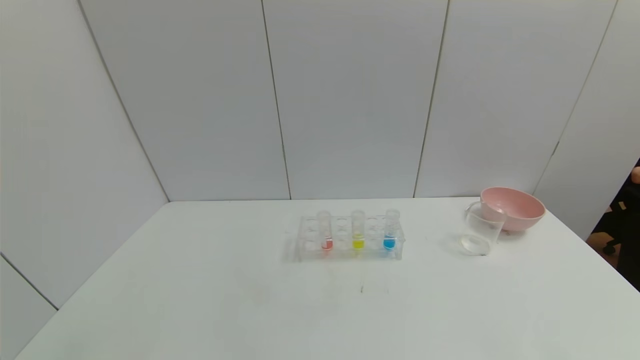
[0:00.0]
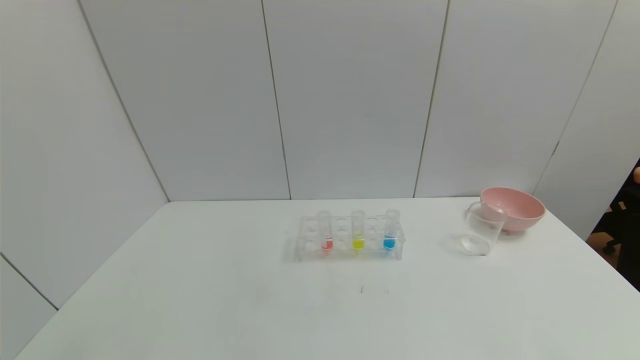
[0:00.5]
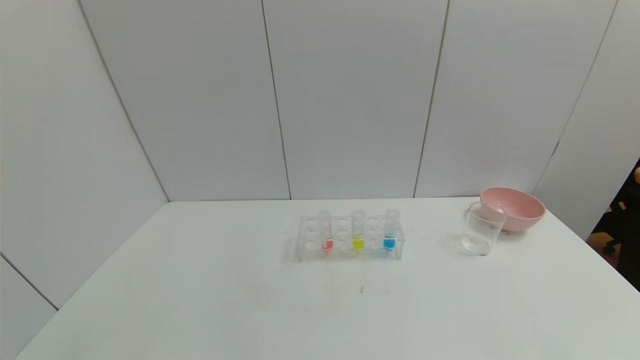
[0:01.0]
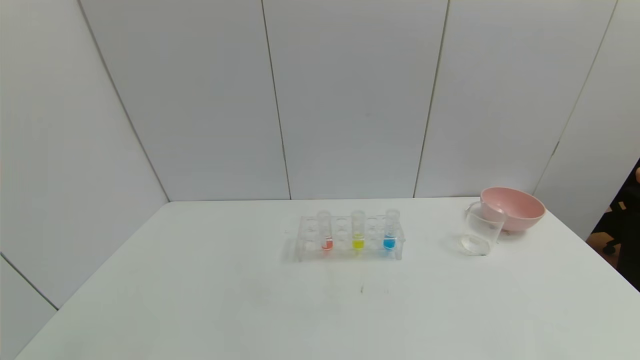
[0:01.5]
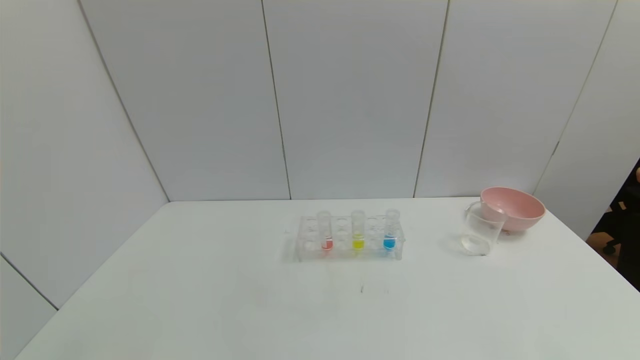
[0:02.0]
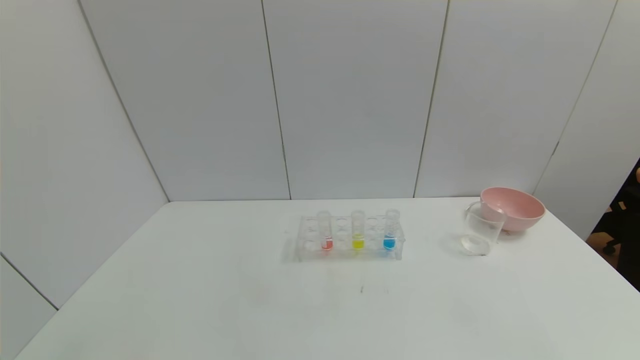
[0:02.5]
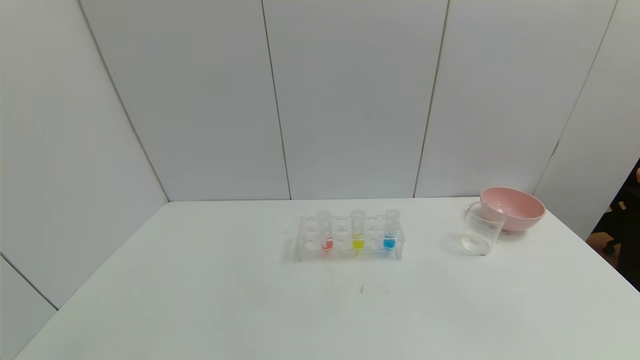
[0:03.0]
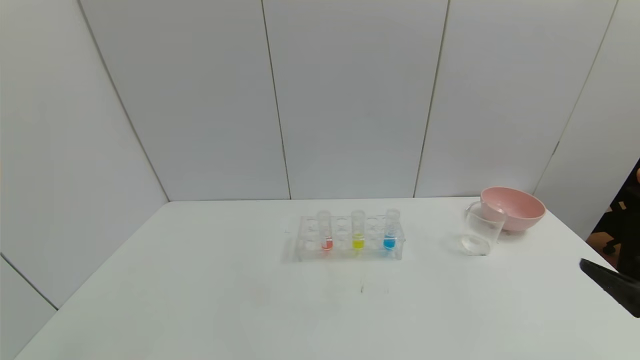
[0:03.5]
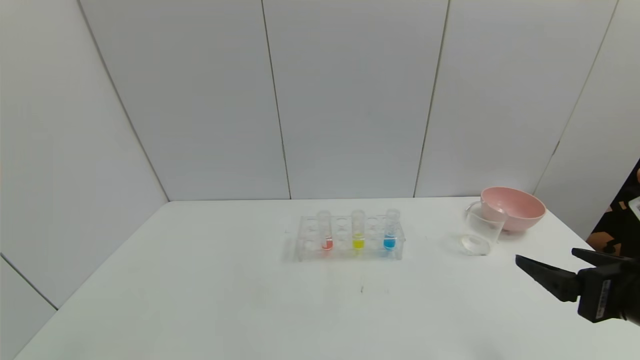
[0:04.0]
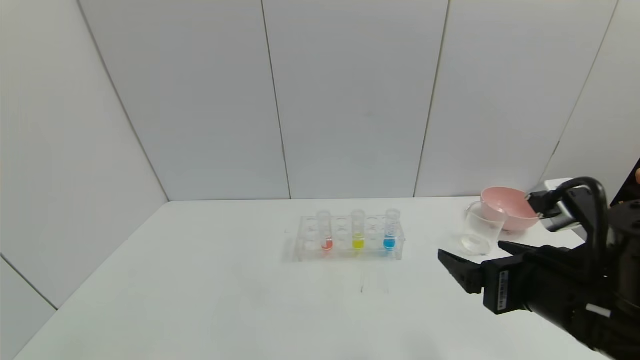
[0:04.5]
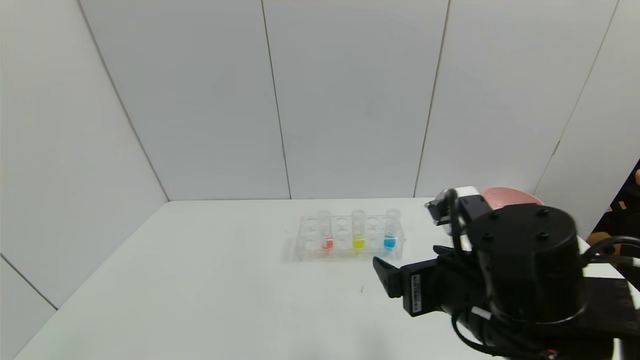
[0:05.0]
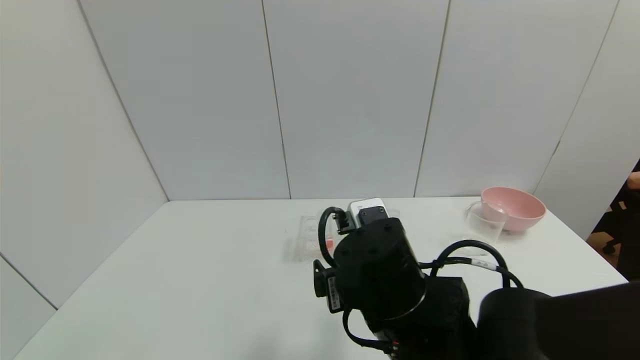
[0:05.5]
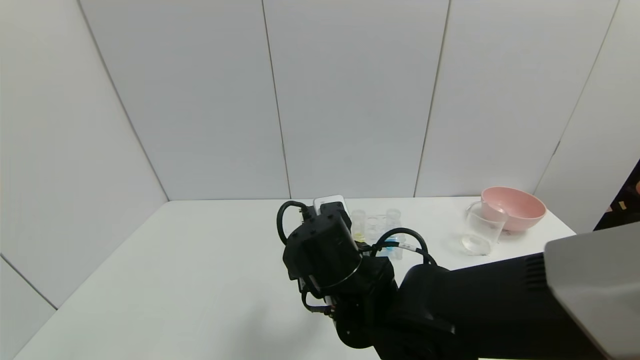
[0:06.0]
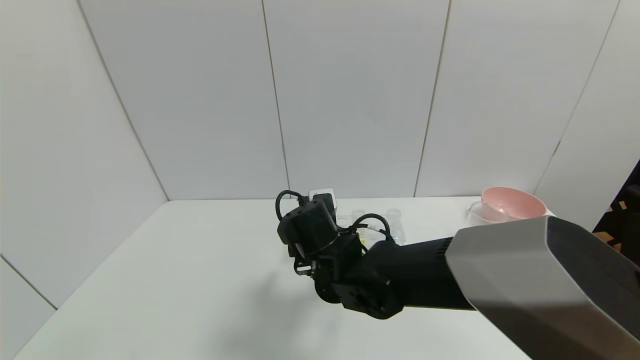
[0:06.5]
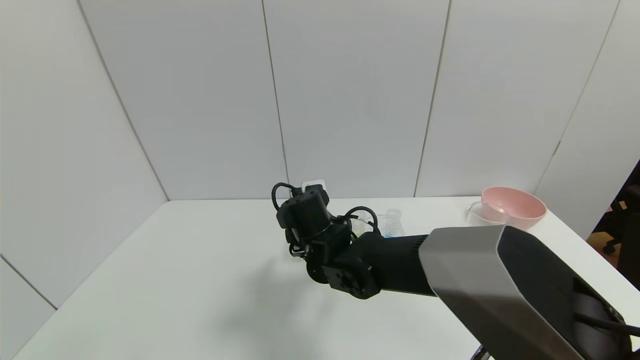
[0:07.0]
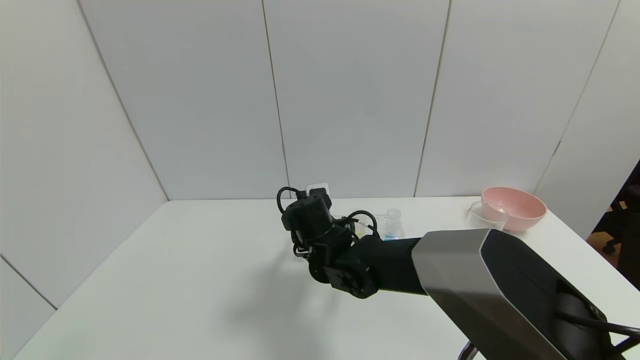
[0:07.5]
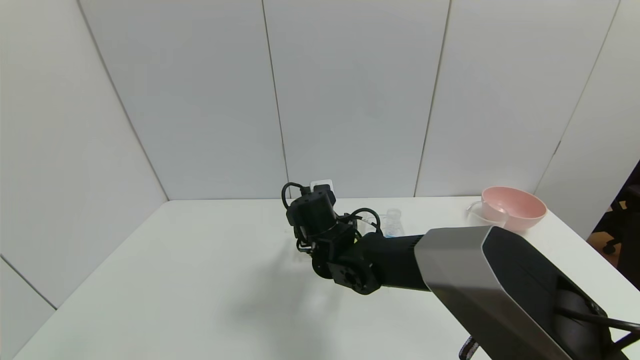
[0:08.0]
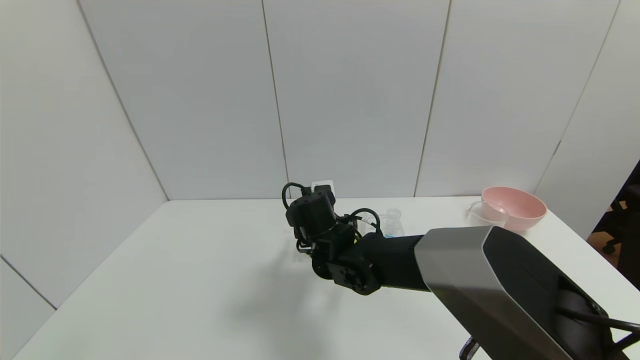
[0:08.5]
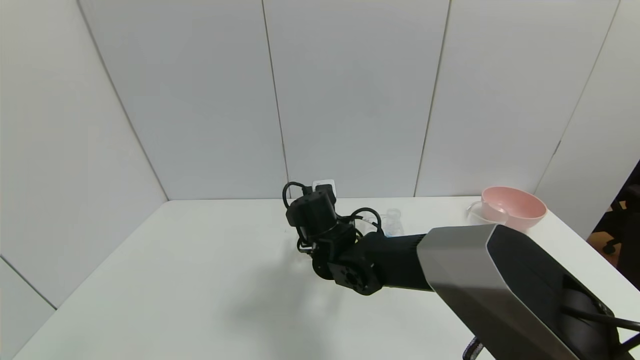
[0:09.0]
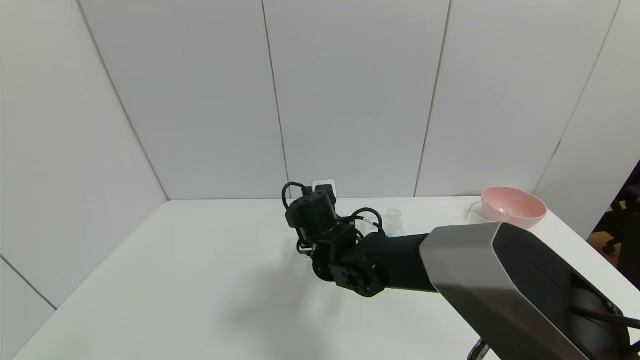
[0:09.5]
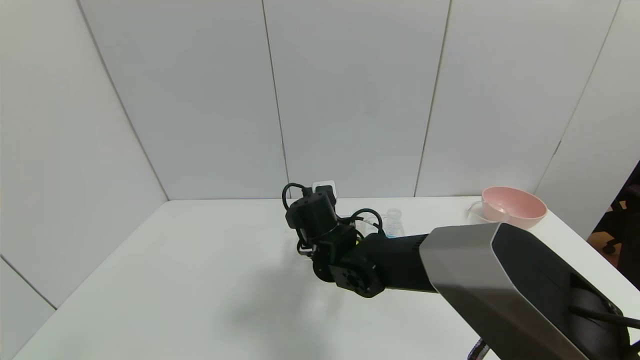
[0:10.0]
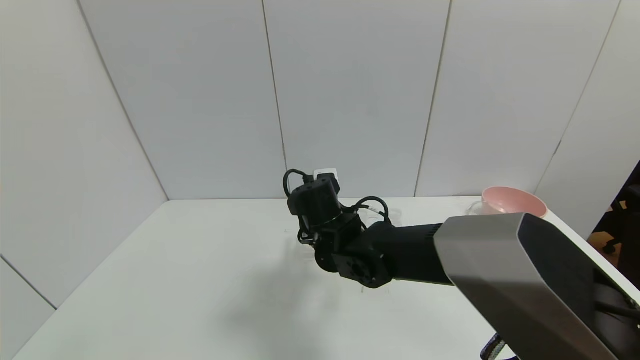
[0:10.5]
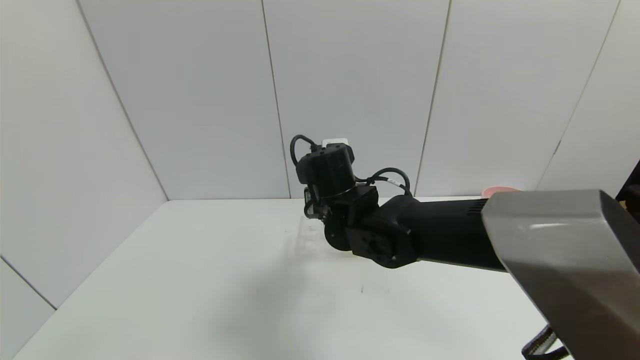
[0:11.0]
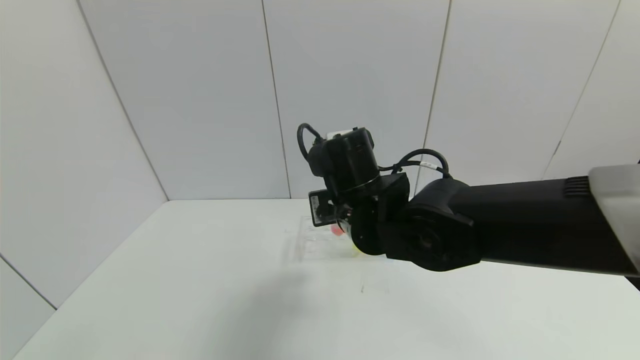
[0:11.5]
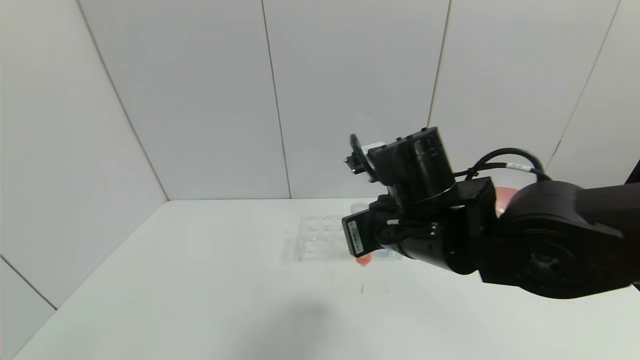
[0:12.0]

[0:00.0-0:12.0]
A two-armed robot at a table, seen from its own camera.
Task of the whole recording: pick up the test tube with yellow pigment and the test tube with red pigment by grippers and pour them into the beaker.
Step, 0:00.0 to 0:09.0: Grasp the red reagent with the right gripper.
0:00.0 to 0:02.0: The two grippers keep their place.
0:02.0 to 0:04.0: The right gripper heads forward and upward, covering about 20 cm.
0:04.0 to 0:06.0: The right gripper heads to the left, covering roughly 30 cm.
0:06.0 to 0:08.0: The right gripper goes about 10 cm forward.
0:08.0 to 0:10.0: The right gripper closes.
0:10.0 to 0:12.0: The right gripper is displaced upward, to the right and backward by roughly 20 cm.

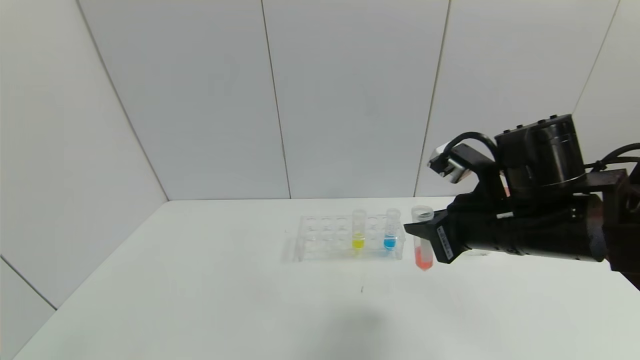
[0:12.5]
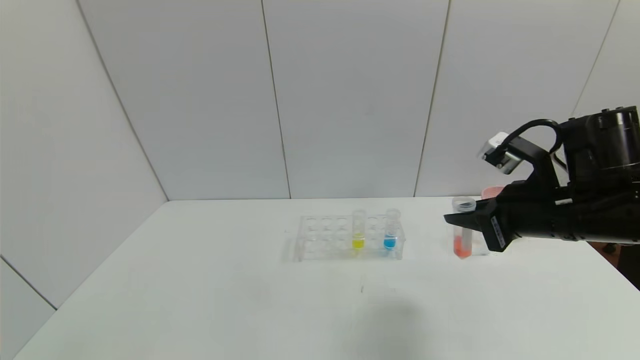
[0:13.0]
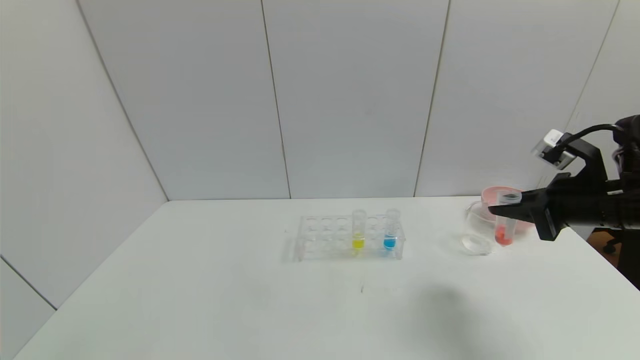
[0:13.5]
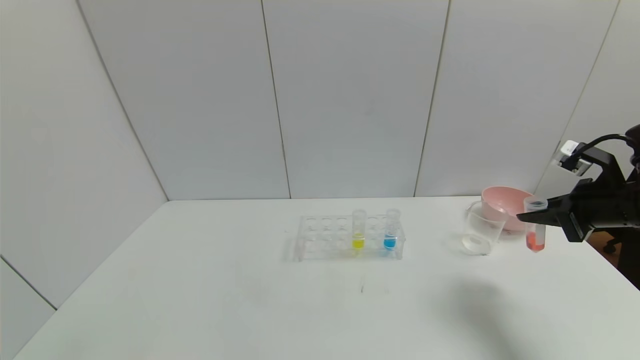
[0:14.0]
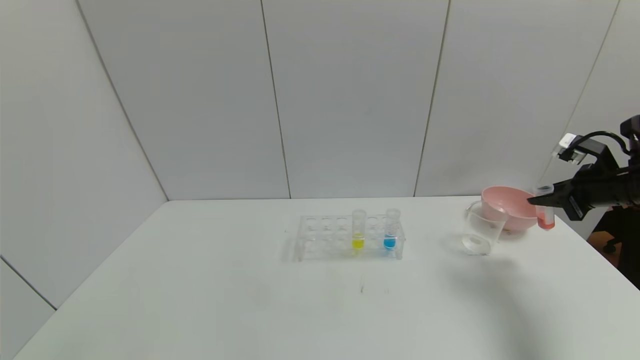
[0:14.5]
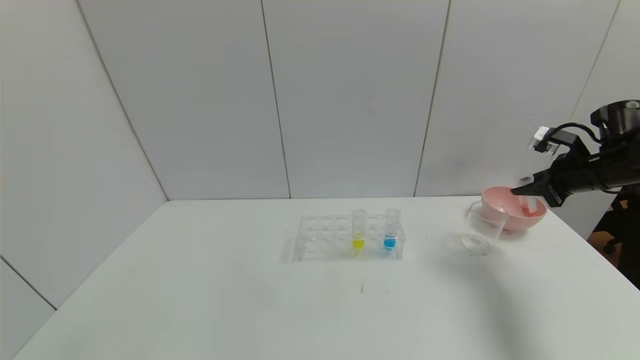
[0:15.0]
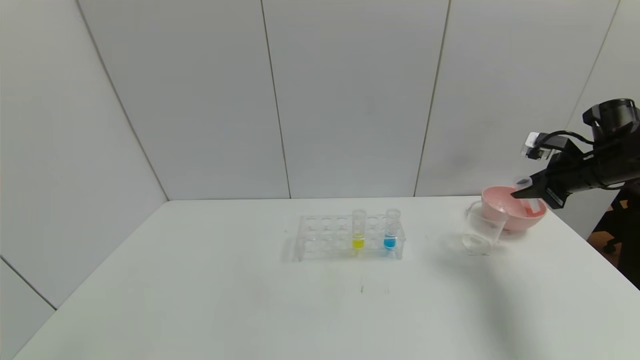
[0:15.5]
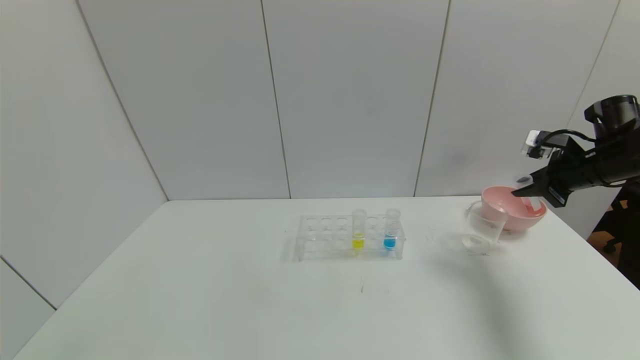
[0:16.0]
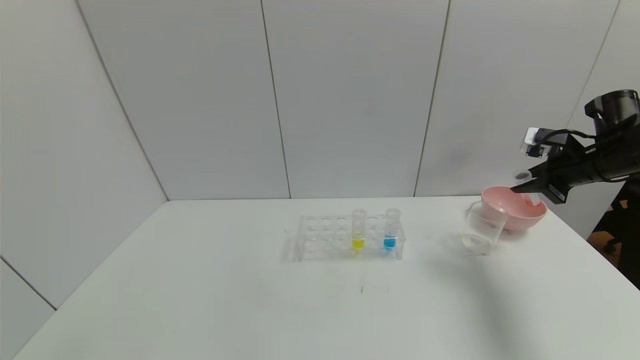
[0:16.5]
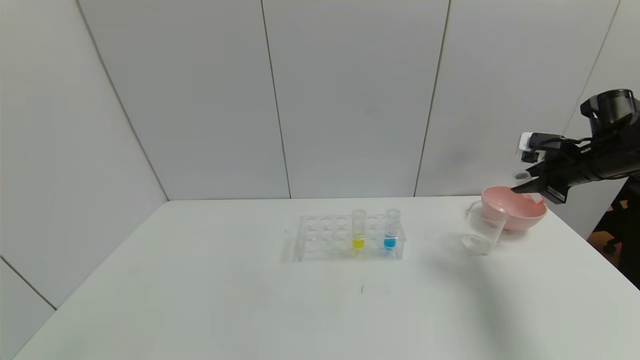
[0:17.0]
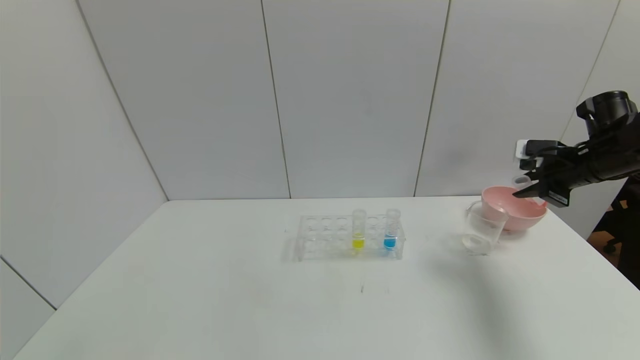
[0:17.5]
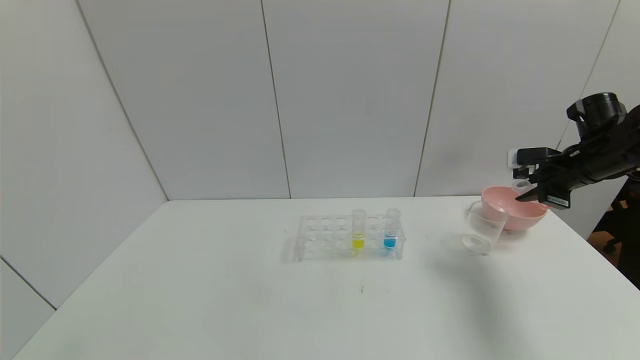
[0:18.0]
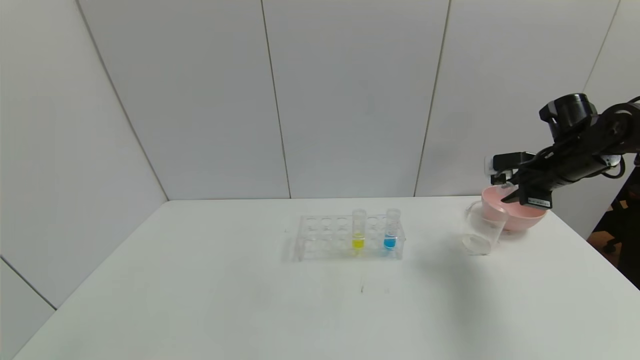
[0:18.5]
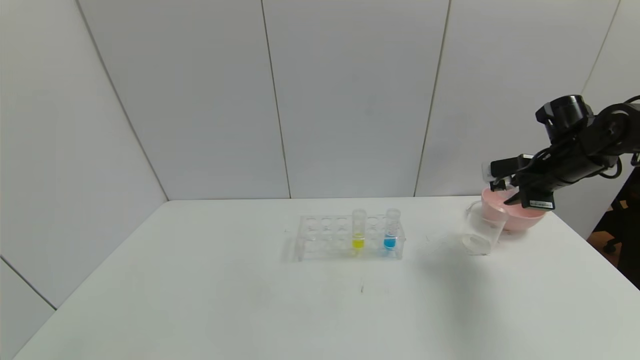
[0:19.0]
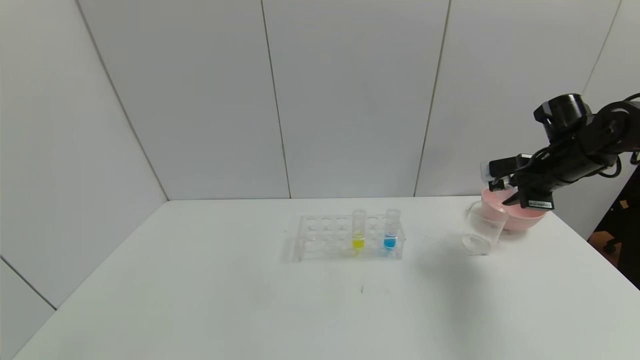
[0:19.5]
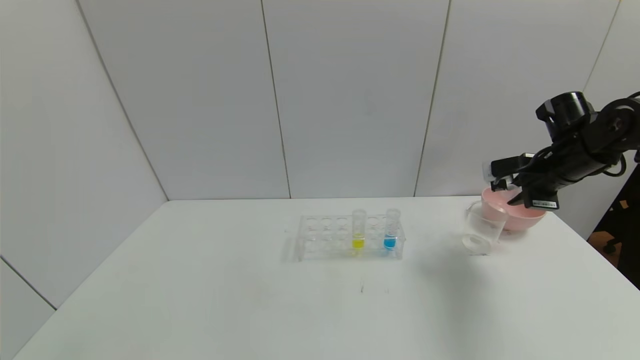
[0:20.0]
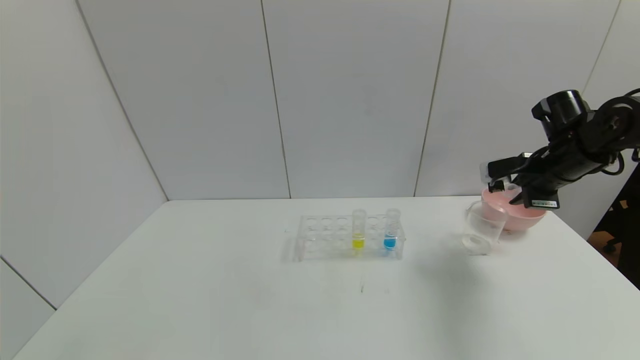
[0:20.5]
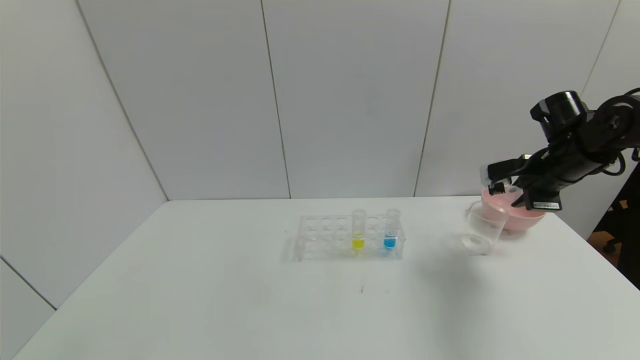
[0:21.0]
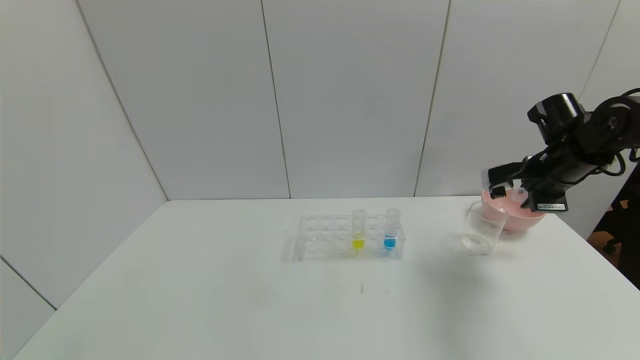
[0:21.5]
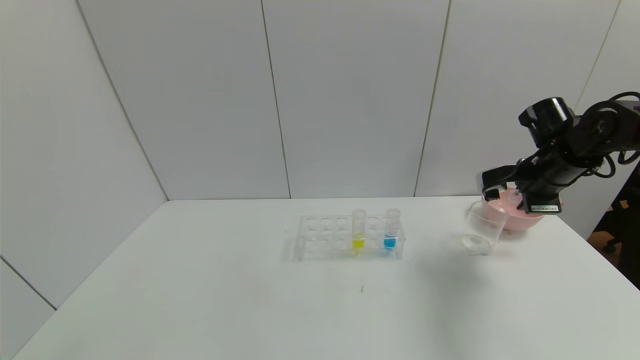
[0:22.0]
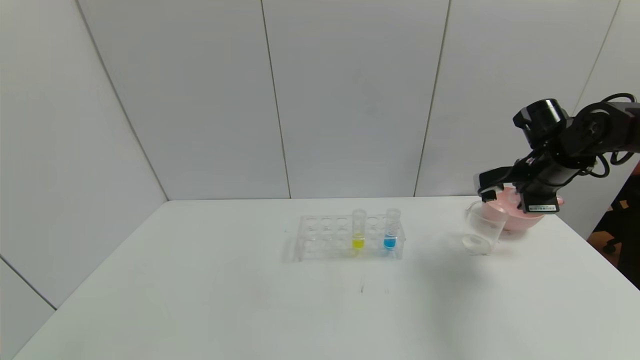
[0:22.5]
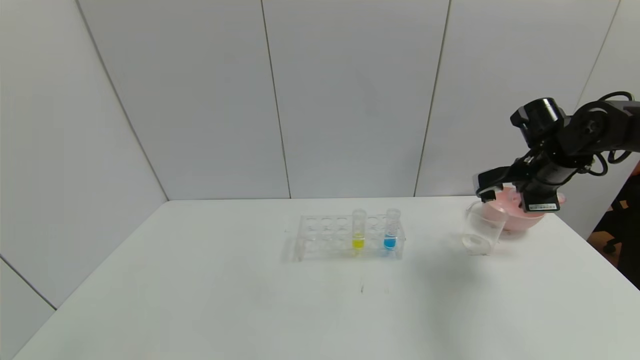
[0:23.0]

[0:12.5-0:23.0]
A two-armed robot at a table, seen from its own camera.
Task of the whole recording: pick up the test tube with yellow pigment and the test tube with red pigment by grippers and pour them into the beaker.
0:12.5 to 0:14.5: The right gripper moves to the right, approximately 25 cm.
0:14.5 to 0:16.5: The right gripper moves about 5 cm.
0:16.5 to 0:19.0: The right gripper shifts about 5 cm to the left.
0:19.0 to 0:23.0: The grippers stay close to where they were, moving slightly.
